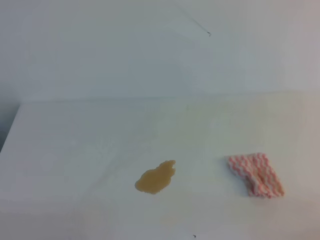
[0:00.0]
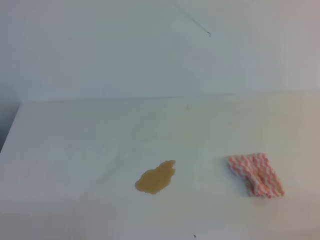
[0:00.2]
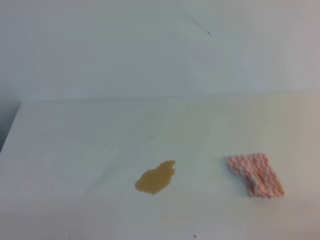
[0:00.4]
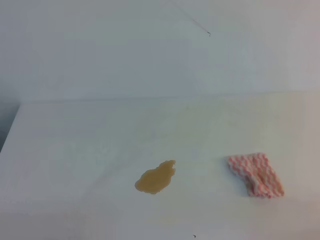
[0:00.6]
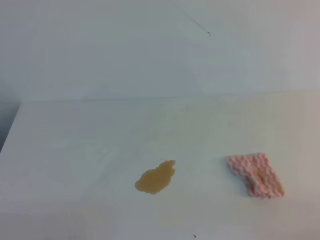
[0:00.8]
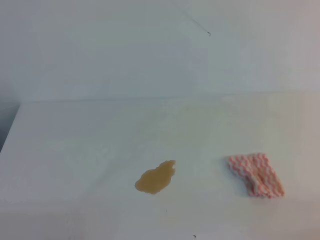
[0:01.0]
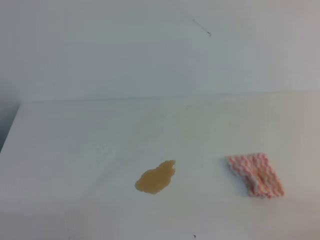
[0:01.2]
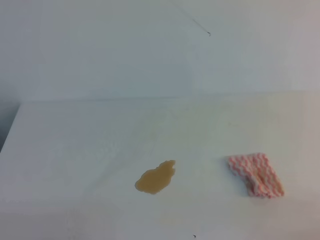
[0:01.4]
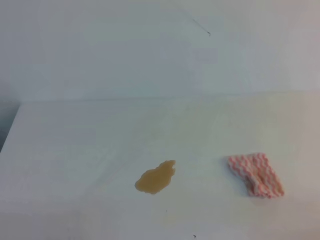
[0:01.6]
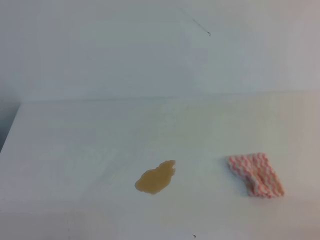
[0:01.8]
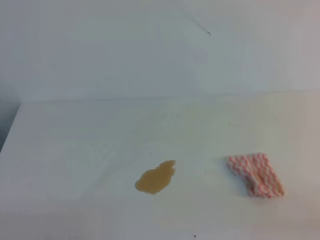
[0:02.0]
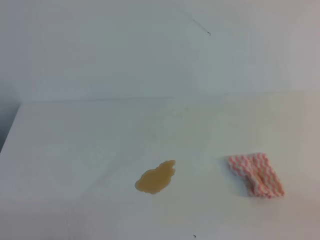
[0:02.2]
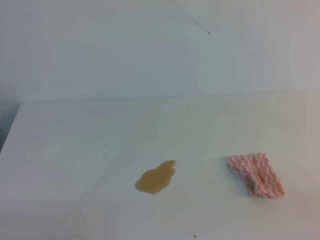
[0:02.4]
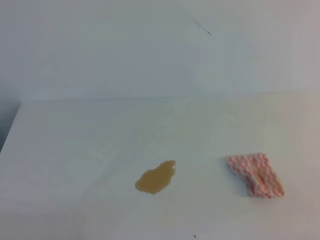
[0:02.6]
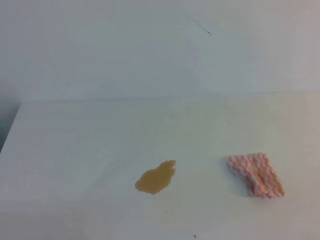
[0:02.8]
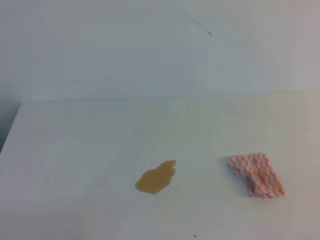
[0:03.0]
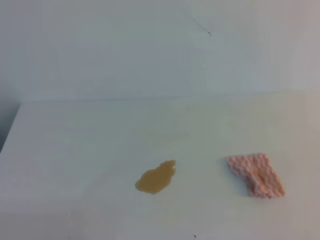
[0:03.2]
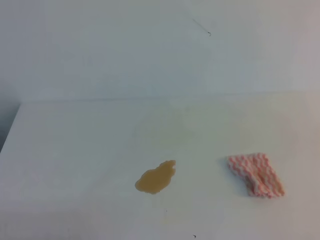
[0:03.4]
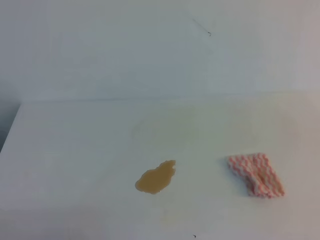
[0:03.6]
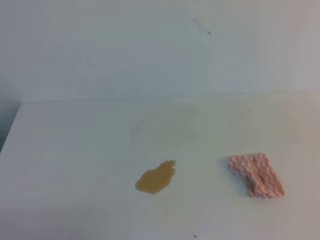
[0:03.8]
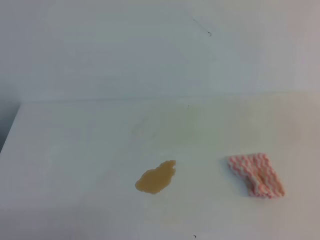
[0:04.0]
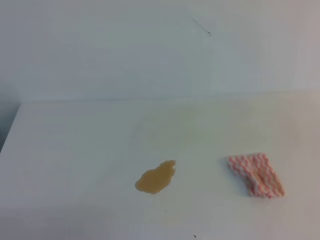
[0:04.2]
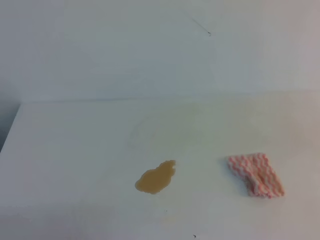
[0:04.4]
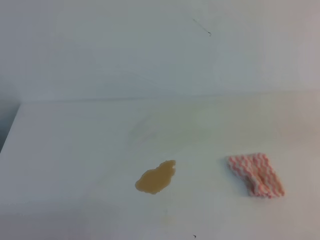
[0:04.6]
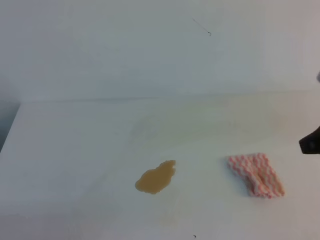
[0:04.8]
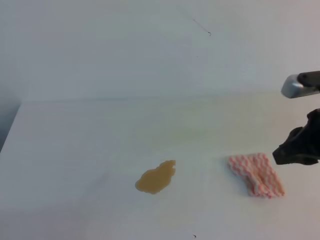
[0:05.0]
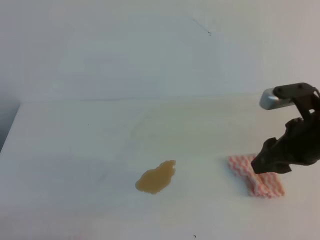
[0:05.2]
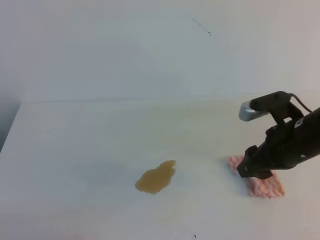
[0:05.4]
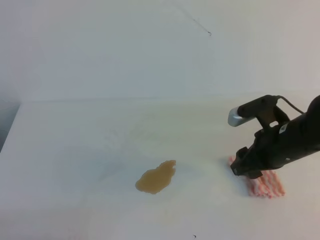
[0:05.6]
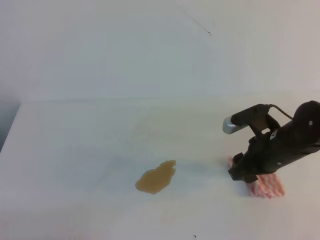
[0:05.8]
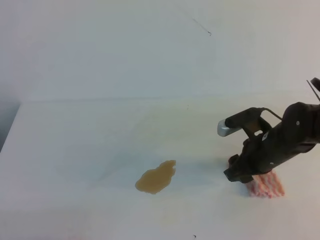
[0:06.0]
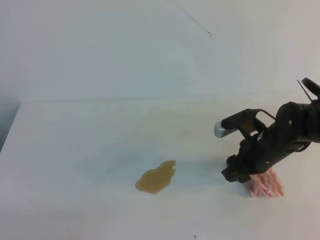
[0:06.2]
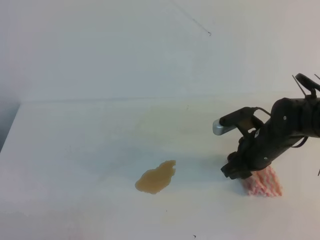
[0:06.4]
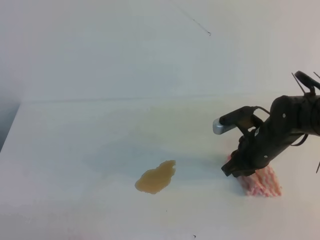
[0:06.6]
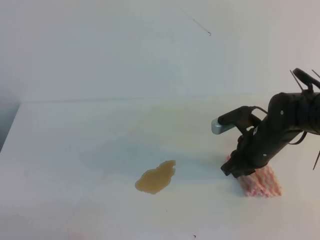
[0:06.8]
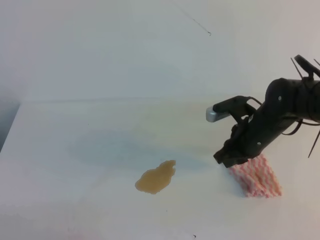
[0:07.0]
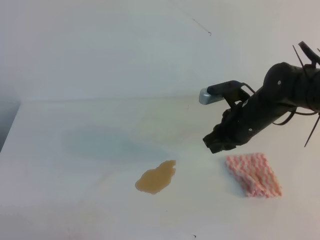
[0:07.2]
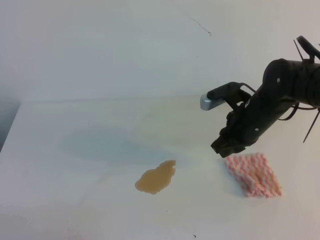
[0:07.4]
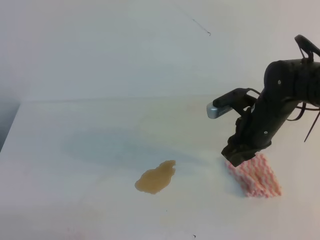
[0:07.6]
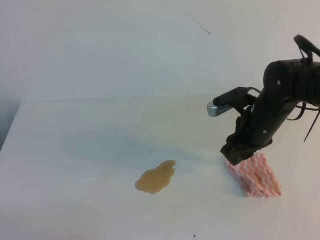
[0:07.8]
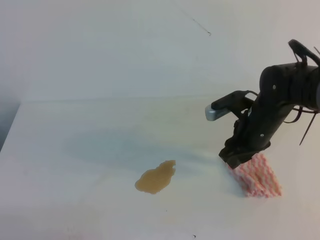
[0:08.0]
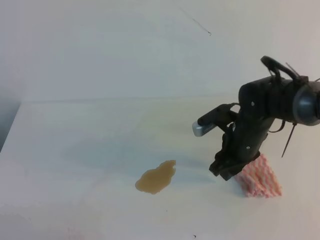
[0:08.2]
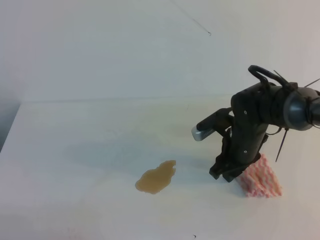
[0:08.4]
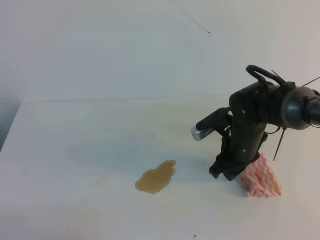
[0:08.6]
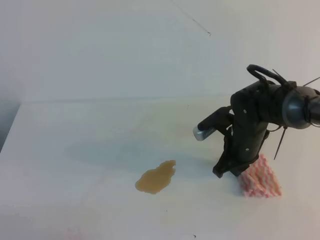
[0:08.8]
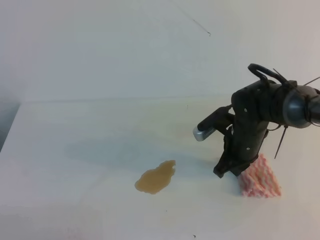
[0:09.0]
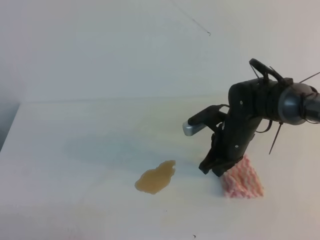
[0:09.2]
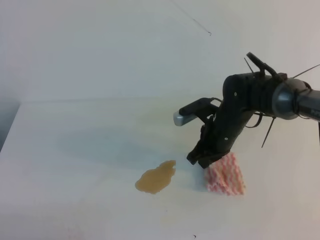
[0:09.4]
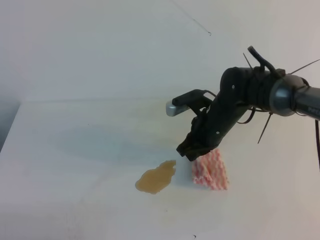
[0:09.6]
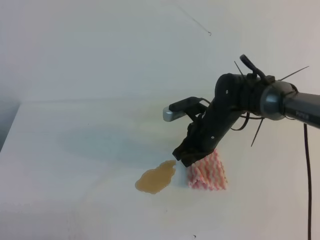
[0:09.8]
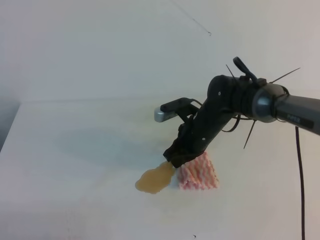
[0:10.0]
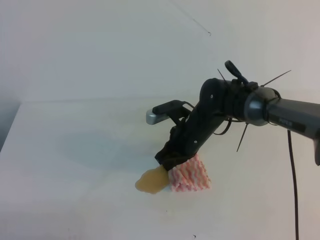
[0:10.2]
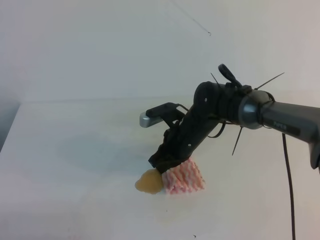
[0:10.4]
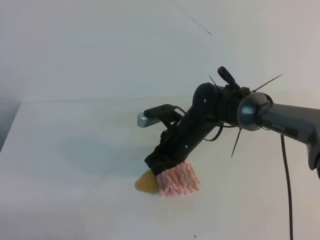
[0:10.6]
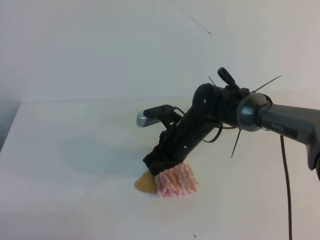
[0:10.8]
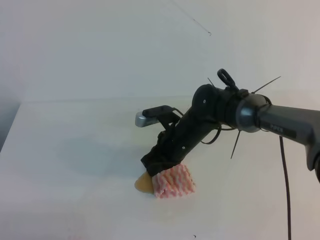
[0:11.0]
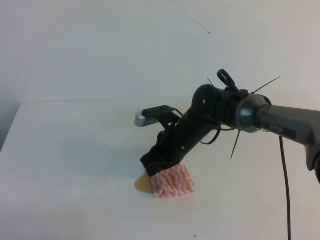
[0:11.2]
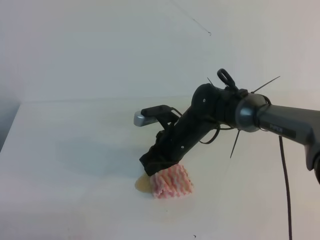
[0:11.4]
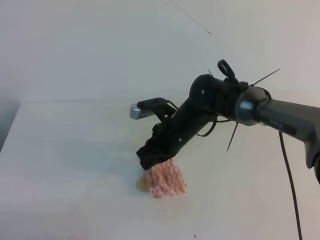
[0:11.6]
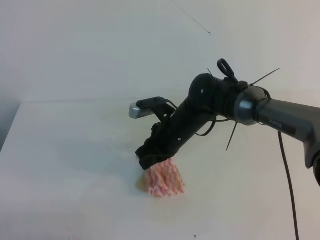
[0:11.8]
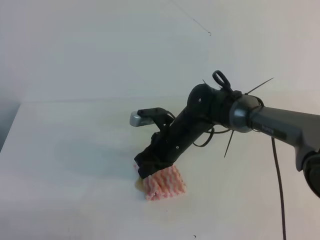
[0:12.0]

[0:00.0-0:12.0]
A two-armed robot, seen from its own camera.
0:00.0 to 0:01.6: Both grippers stay about where they are.
0:04.4 to 0:06.0: The right gripper goes some 25 cm downward, forward and to the left, and opens up.
0:06.0 to 0:07.6: The right gripper ends up some 5 cm from where it was, and closes and opens again.
0:07.6 to 0:09.0: The right gripper goes approximately 5 cm downward, and closes up.
0:09.0 to 0:10.4: The right gripper is displaced to the left by approximately 10 cm.
0:10.4 to 0:12.0: The grippers make only small movements.

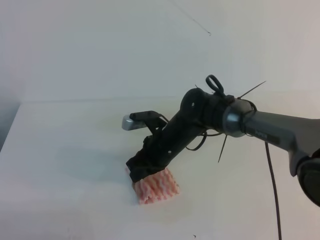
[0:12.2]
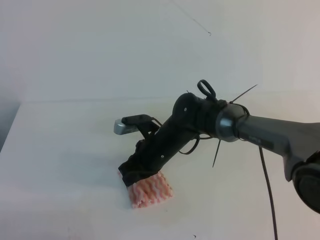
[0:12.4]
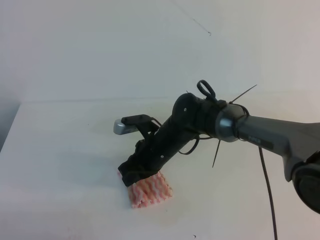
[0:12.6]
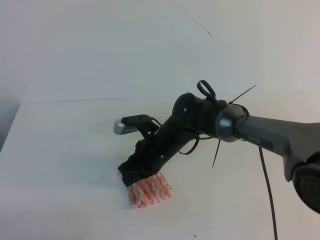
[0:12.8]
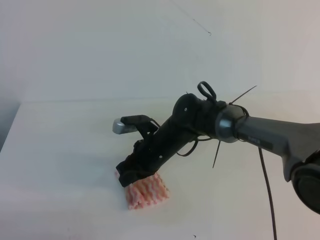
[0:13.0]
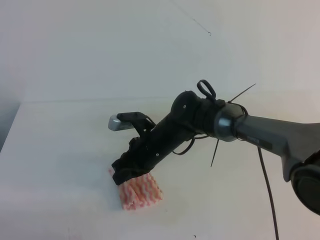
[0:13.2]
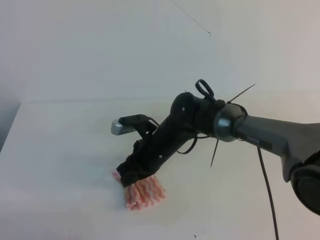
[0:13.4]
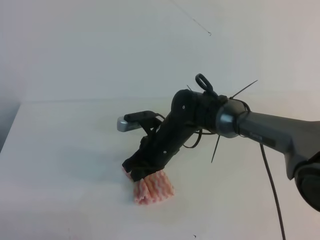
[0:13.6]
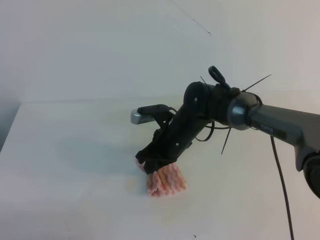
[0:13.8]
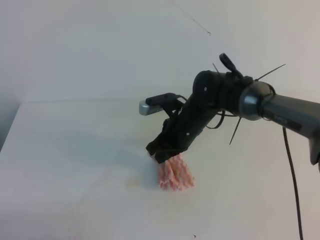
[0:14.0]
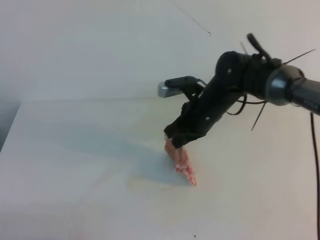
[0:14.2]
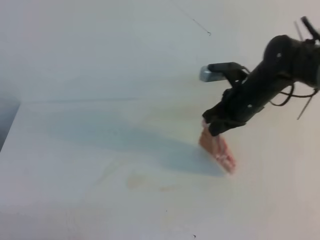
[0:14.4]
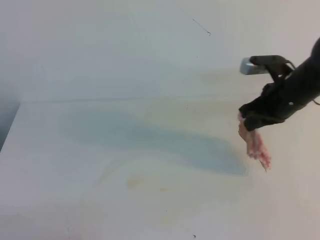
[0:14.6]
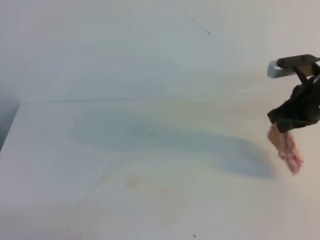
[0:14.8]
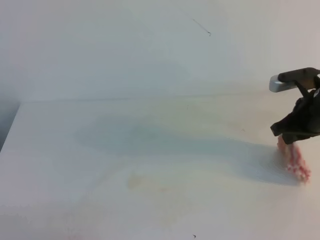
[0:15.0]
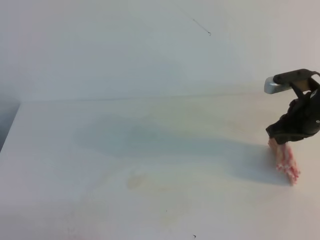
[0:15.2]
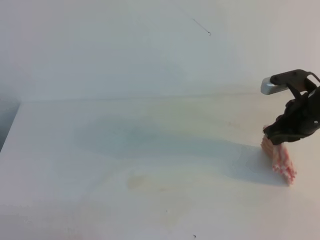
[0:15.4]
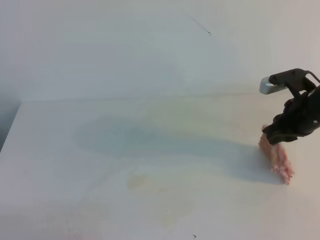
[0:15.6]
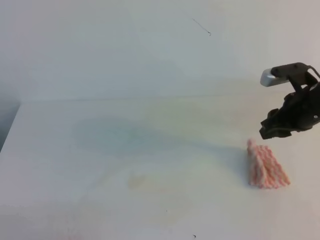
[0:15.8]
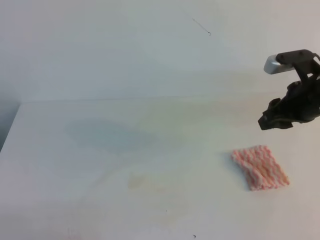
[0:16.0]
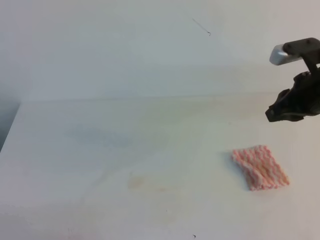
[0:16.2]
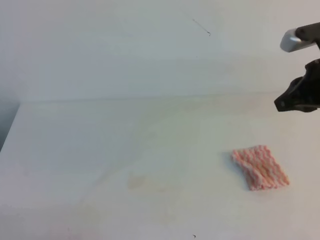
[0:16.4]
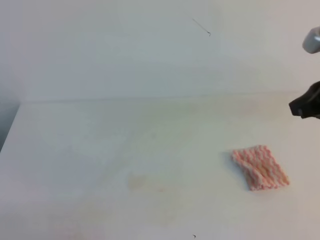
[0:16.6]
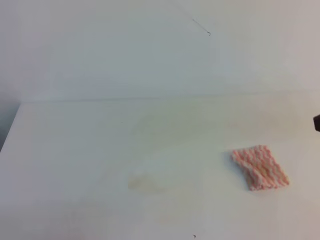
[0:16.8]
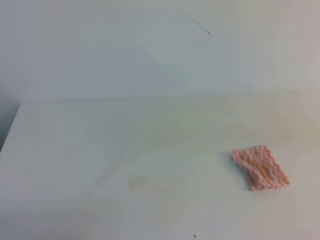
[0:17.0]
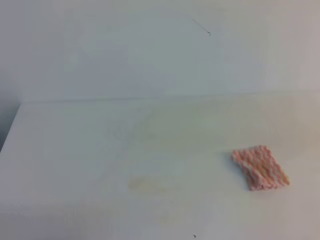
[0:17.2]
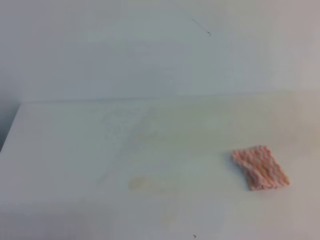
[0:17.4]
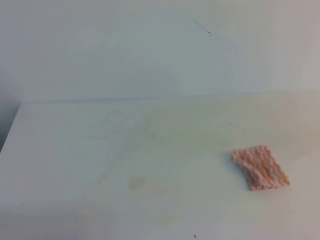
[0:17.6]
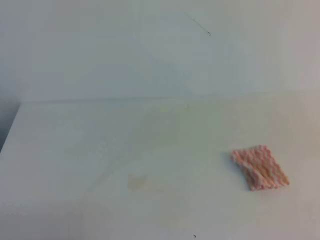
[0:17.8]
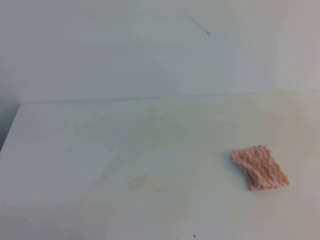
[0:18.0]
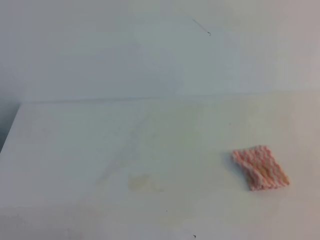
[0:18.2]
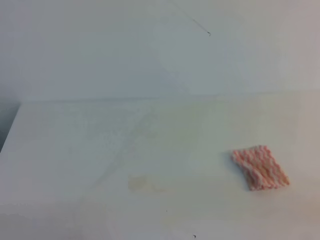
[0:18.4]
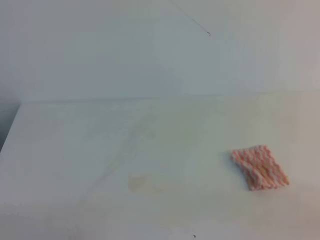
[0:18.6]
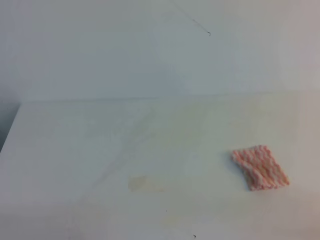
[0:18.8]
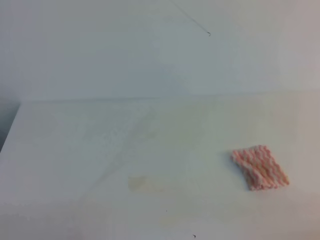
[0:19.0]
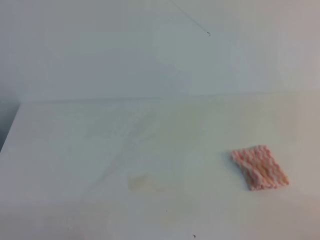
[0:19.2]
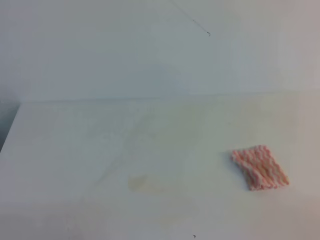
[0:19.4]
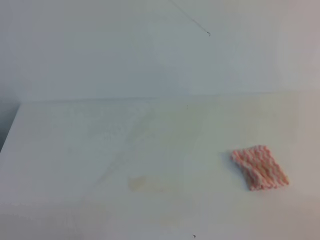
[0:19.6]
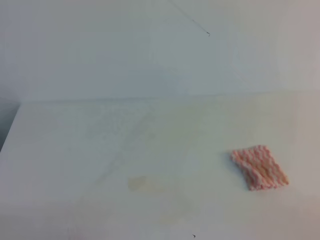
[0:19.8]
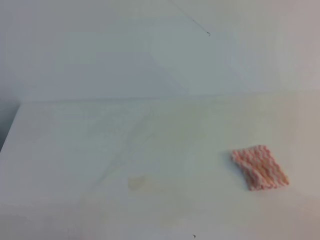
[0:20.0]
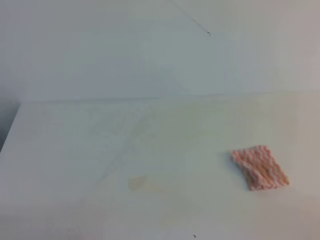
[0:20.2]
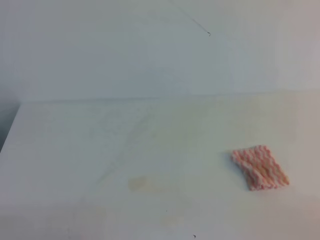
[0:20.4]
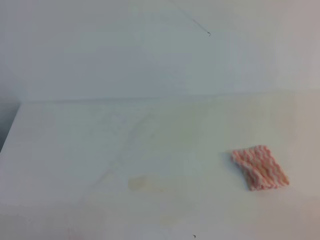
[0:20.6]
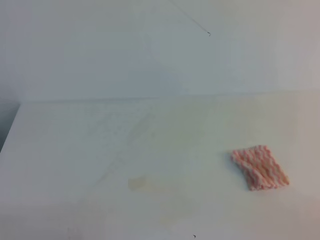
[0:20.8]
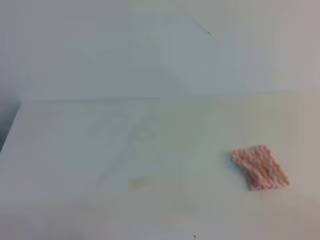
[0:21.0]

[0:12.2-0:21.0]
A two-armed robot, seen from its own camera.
0:12.2 to 0:13.6: The grippers make only small movements.
0:13.6 to 0:15.2: The right gripper goes approximately 25 cm to the right.
0:15.2 to 0:16.6: The right gripper goes roughly 15 cm upward and backward, and opens, then closes again.
0:16.6 to 0:18.0: The right gripper travels backward by roughly 20 cm.
0:19.6 to 0:21.0: Both grippers stay about where they are.
